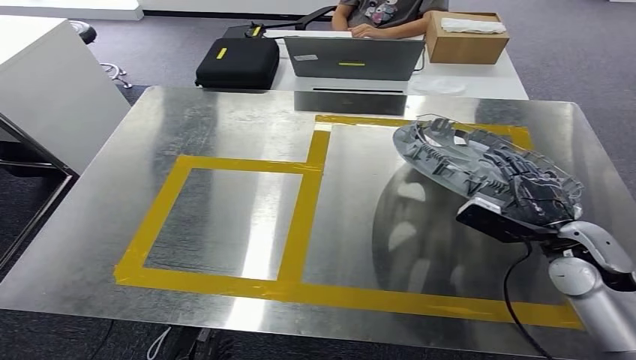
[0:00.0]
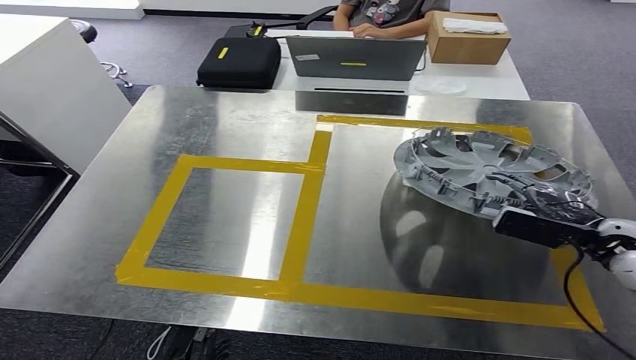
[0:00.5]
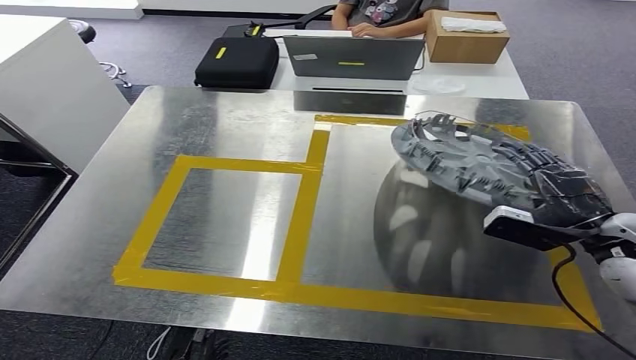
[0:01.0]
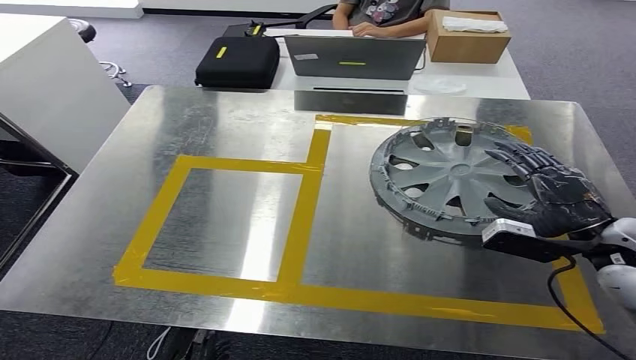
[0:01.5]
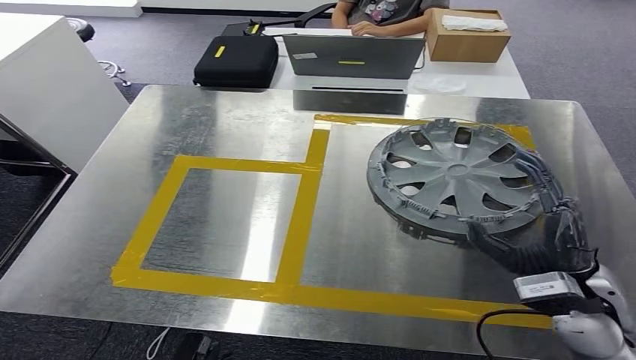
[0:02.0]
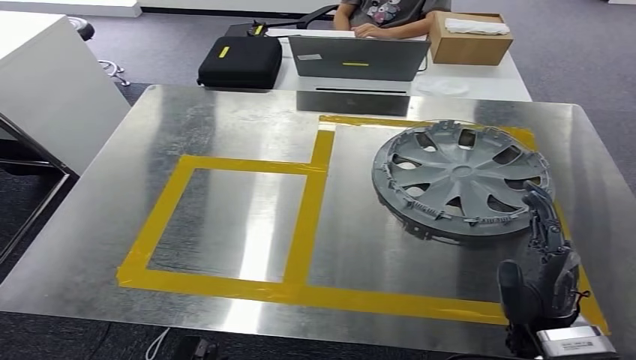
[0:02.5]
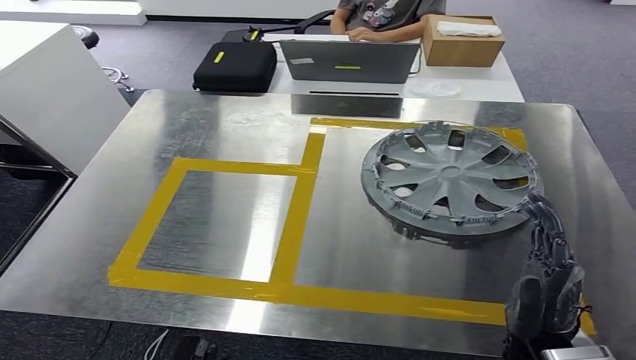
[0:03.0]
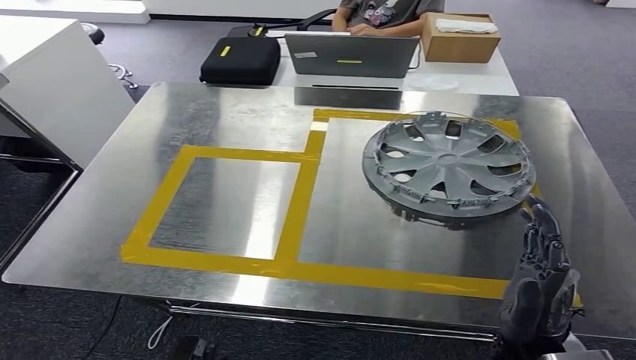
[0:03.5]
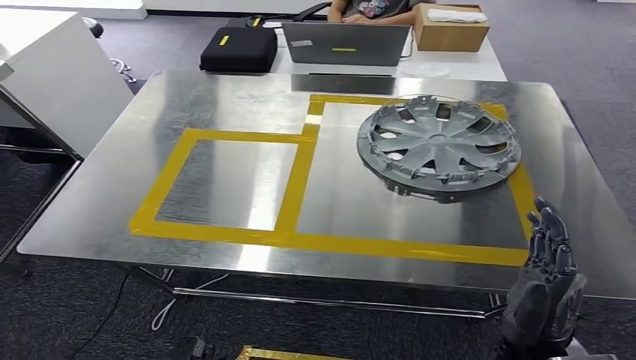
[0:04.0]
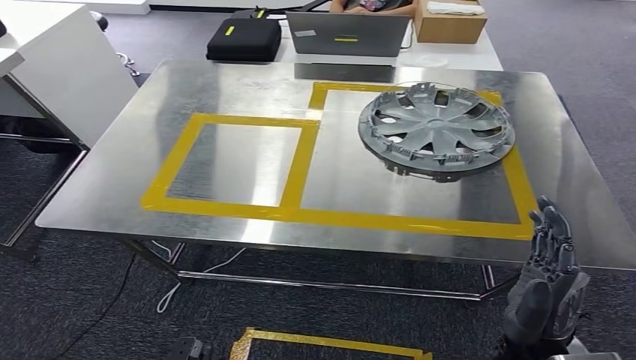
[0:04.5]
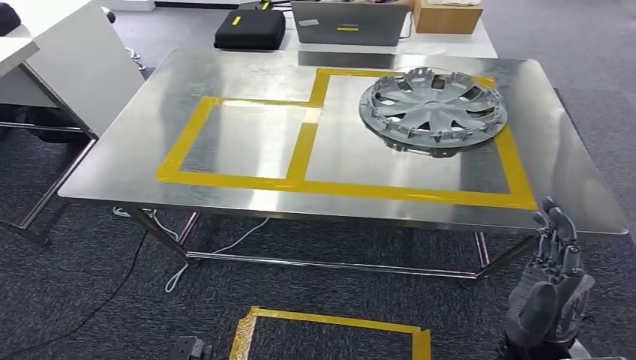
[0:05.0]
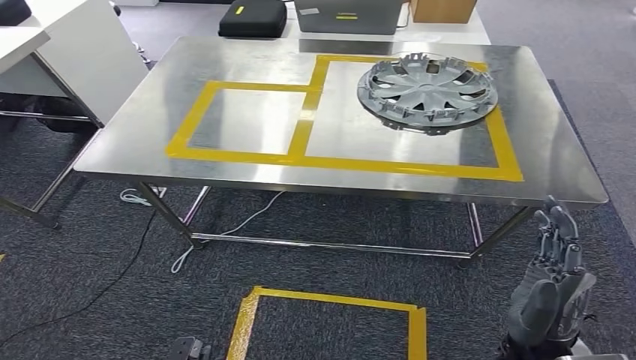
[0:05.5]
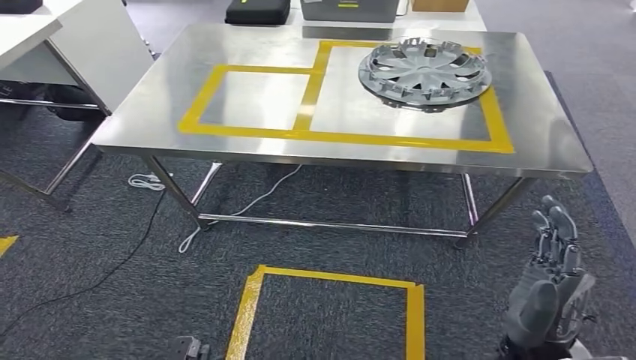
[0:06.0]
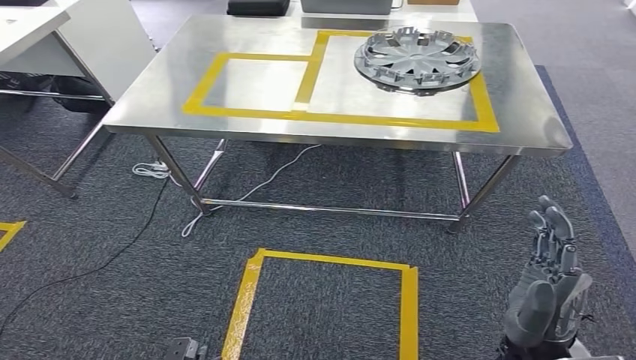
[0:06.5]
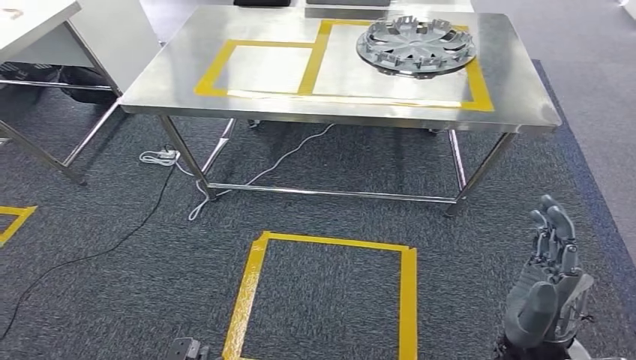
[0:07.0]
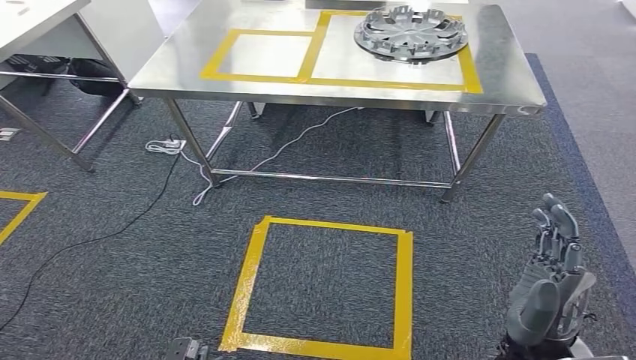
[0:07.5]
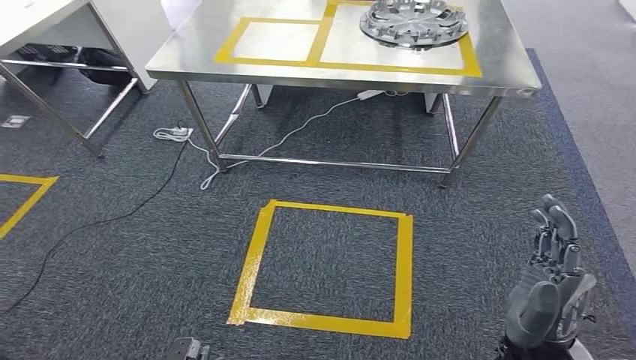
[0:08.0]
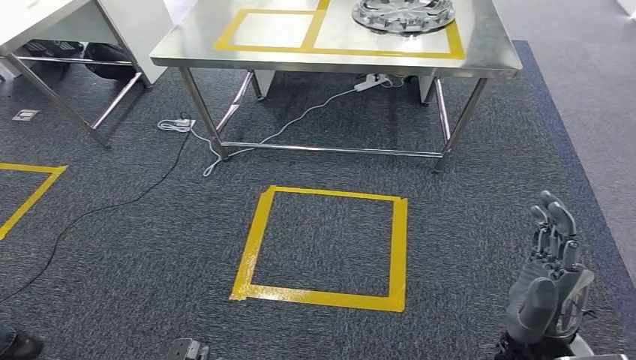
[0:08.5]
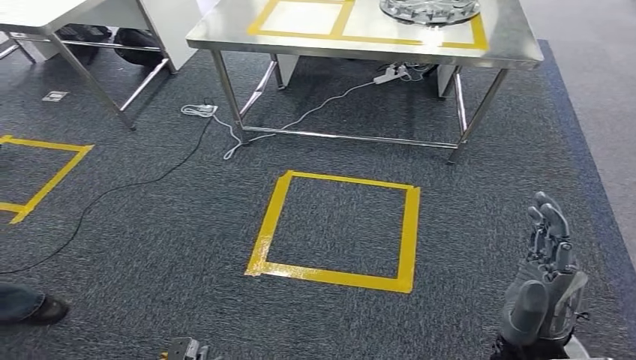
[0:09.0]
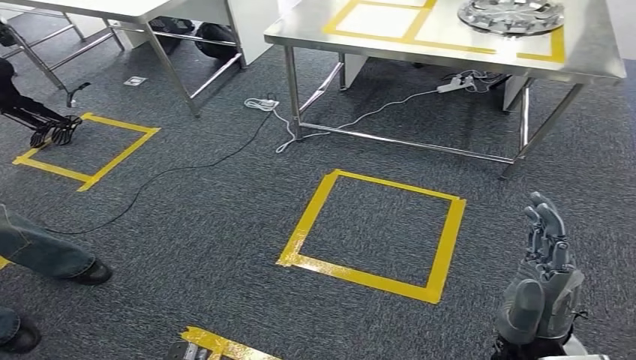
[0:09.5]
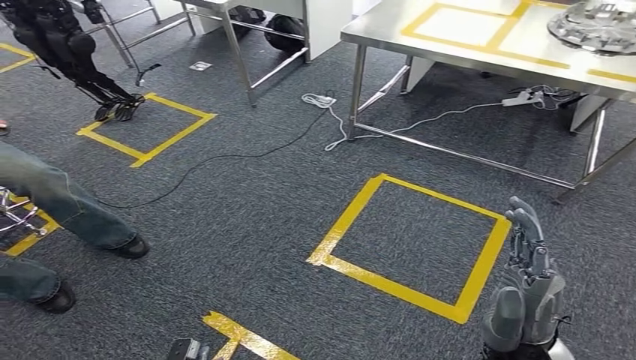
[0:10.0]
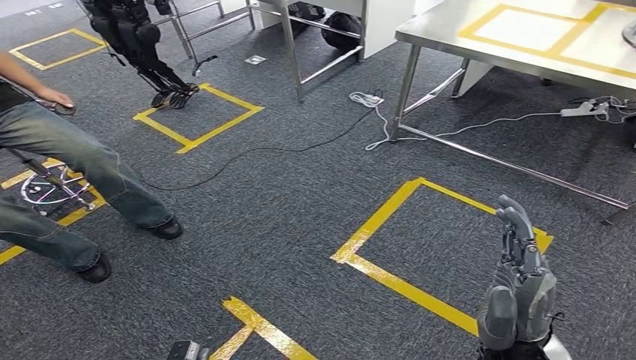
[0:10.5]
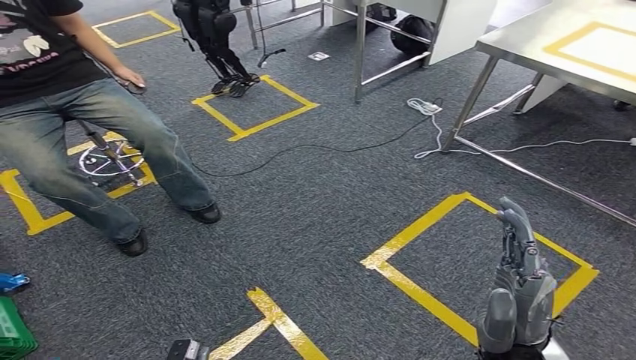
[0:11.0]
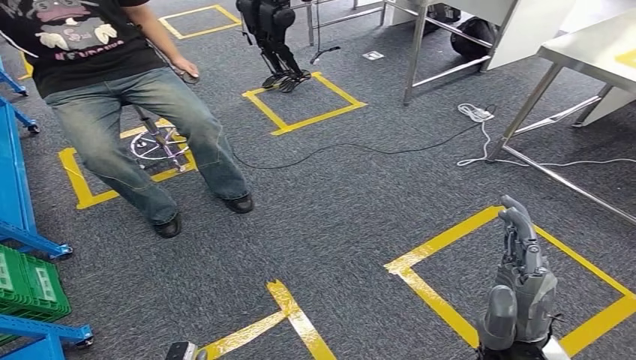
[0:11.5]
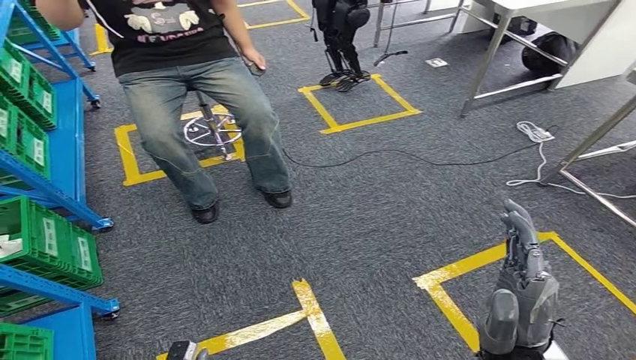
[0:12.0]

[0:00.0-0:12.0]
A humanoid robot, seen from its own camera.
Step, 0:00.0 to 0:05.0: Insert the small component into the corresponding slot on the workbench.

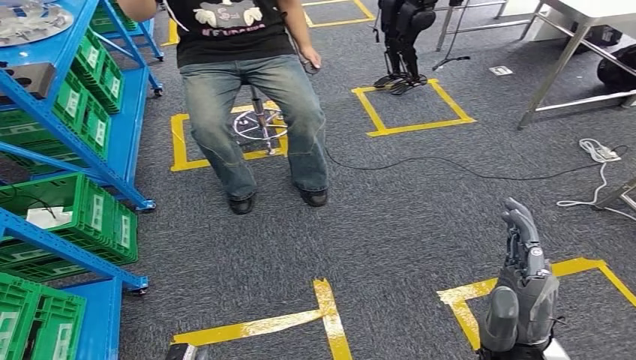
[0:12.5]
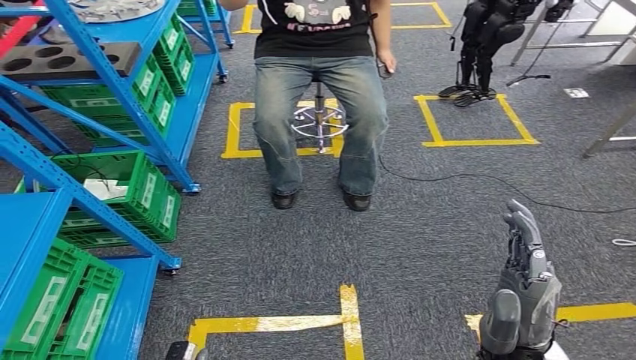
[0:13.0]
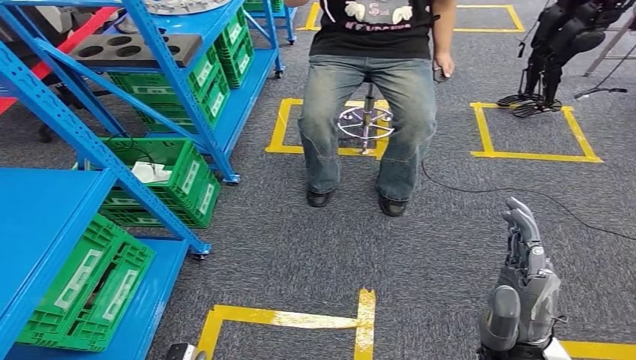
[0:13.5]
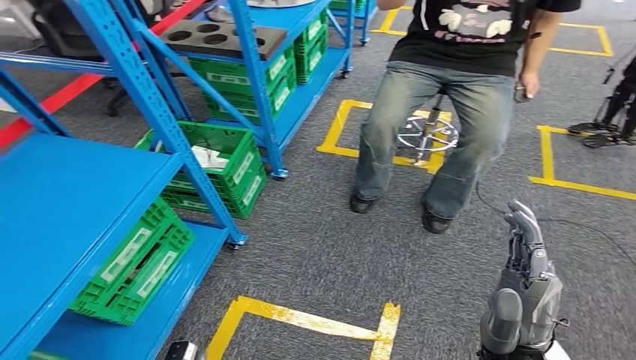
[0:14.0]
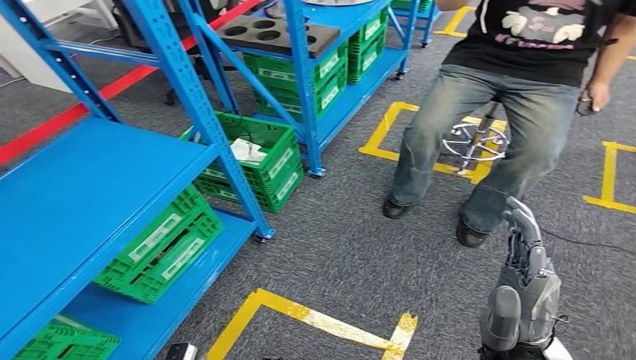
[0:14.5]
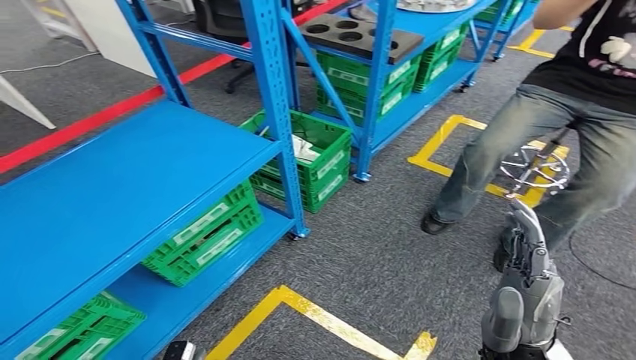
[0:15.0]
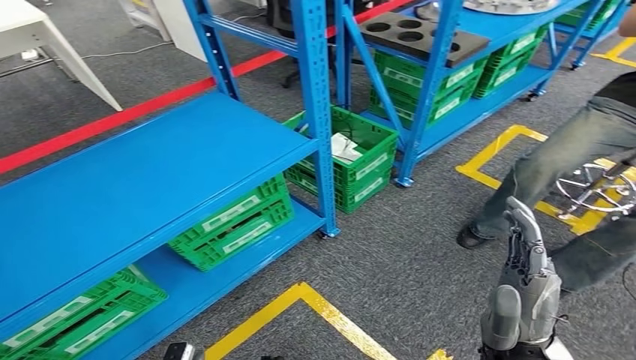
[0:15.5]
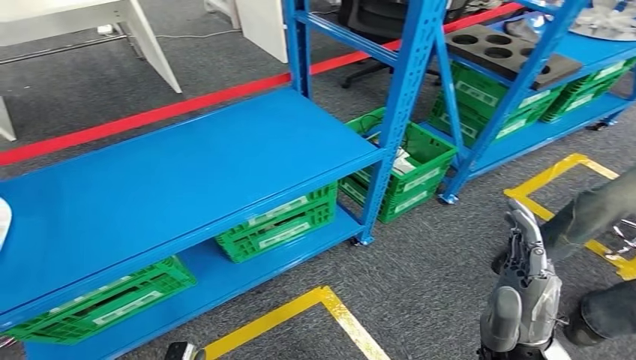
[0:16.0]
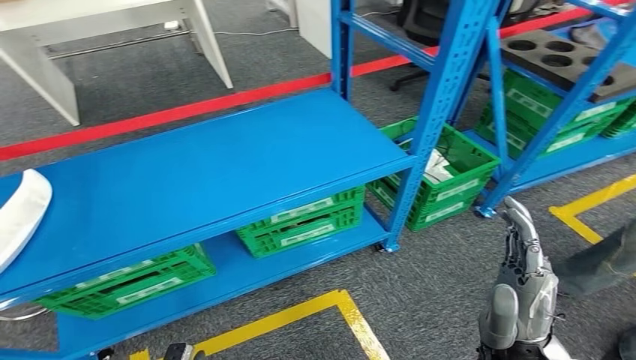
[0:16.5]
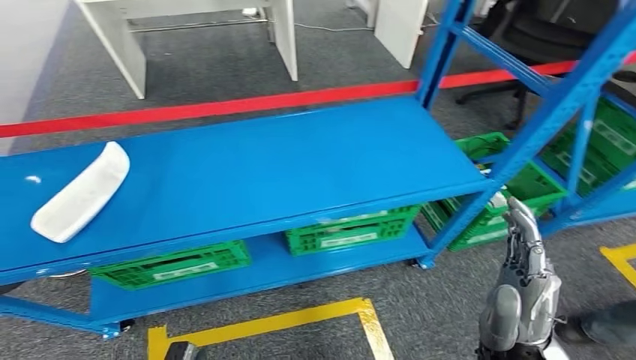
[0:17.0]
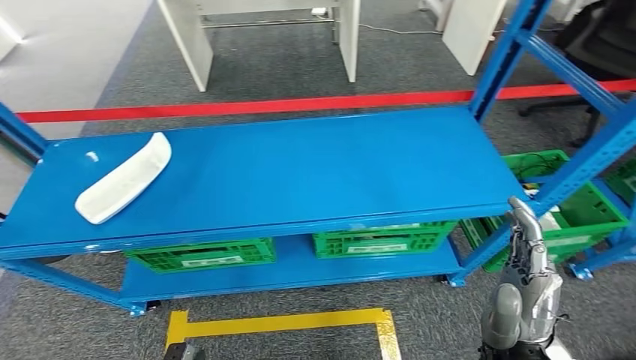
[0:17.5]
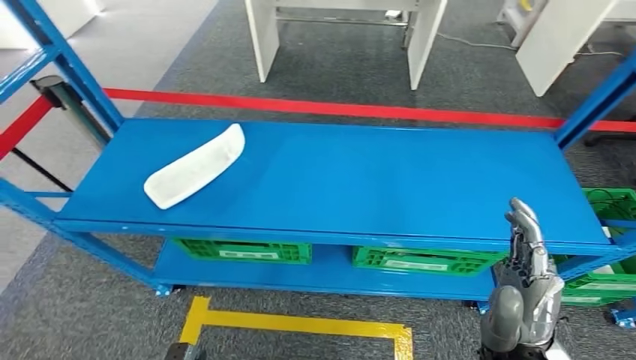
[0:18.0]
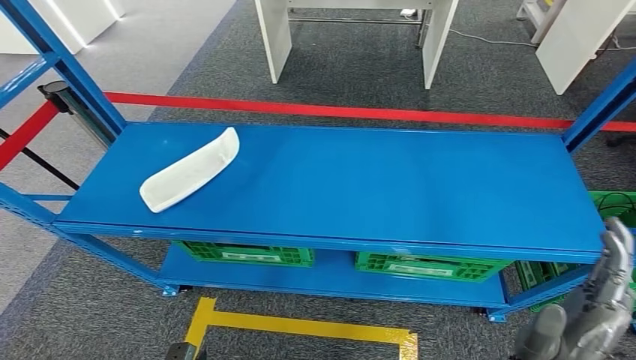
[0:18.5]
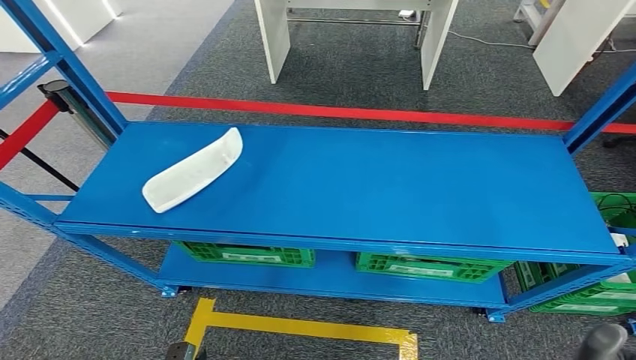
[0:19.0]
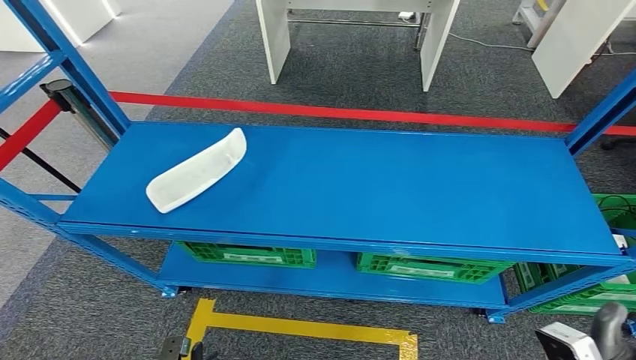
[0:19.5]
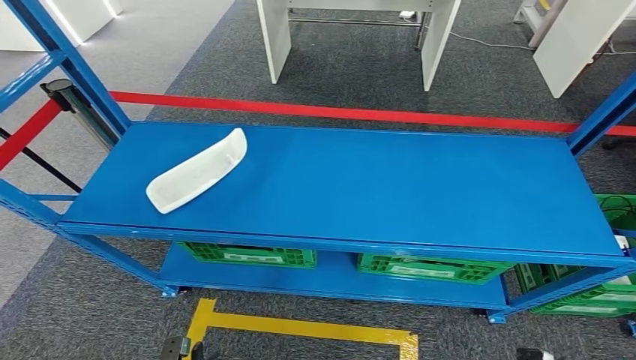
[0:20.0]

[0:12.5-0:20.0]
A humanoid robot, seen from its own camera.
Step, 0:12.5 to 0:20.0: Return to the initial position at the workbench.
